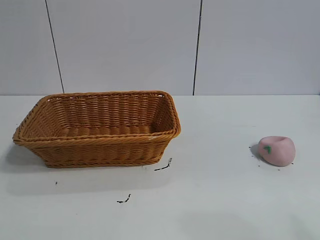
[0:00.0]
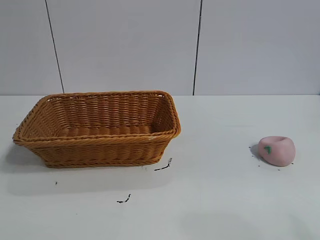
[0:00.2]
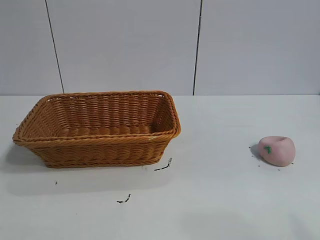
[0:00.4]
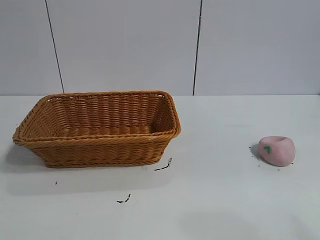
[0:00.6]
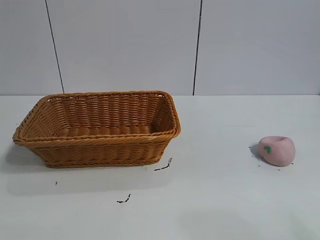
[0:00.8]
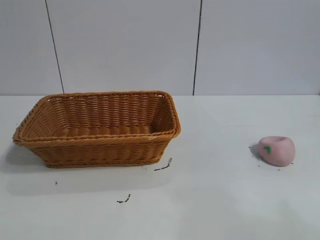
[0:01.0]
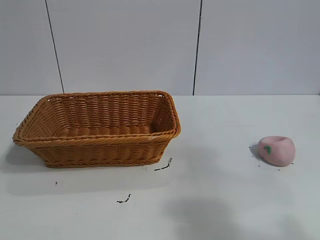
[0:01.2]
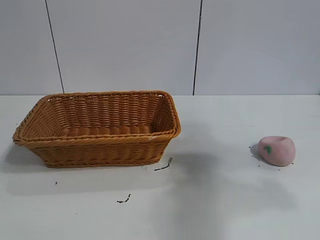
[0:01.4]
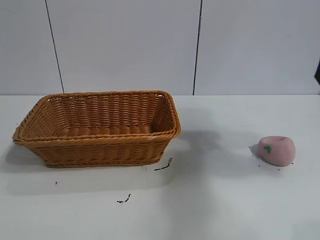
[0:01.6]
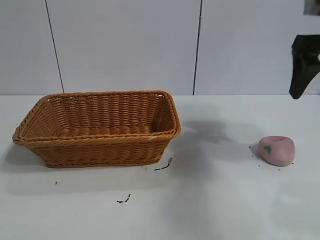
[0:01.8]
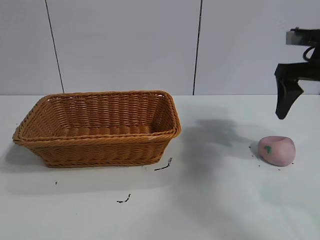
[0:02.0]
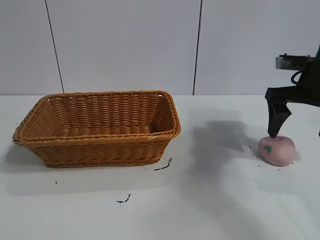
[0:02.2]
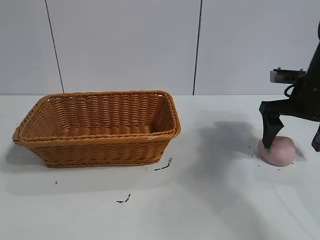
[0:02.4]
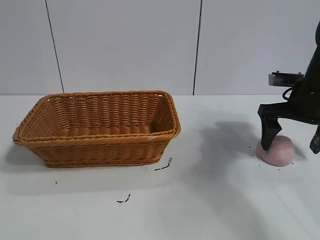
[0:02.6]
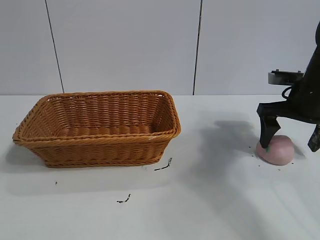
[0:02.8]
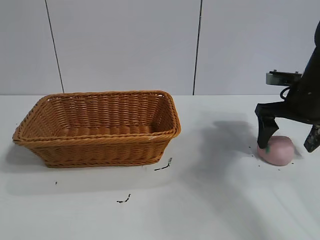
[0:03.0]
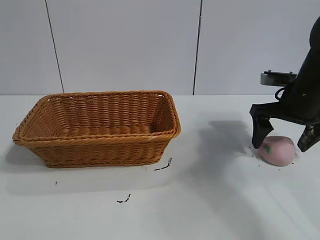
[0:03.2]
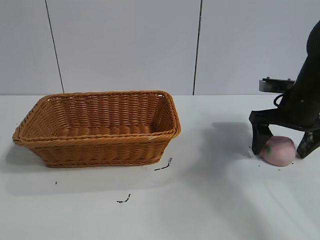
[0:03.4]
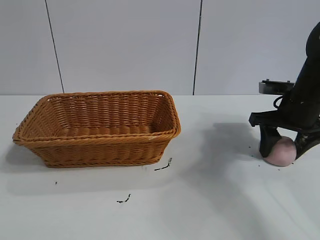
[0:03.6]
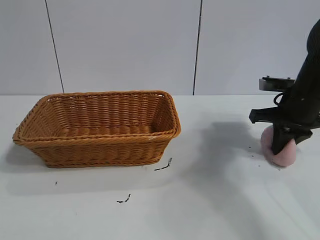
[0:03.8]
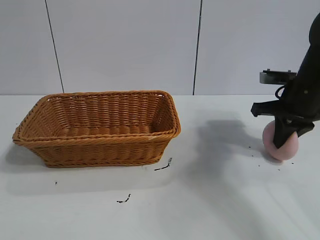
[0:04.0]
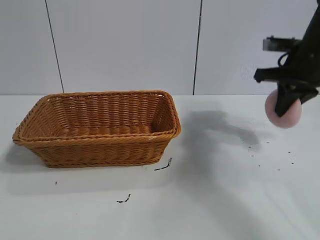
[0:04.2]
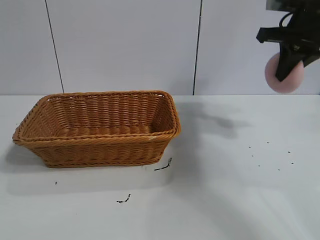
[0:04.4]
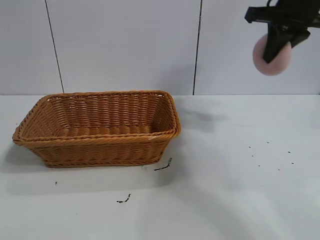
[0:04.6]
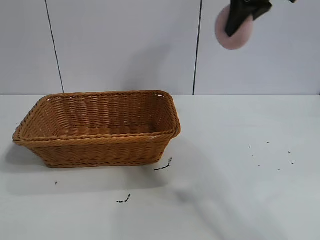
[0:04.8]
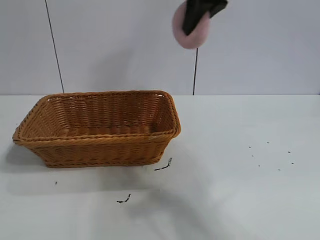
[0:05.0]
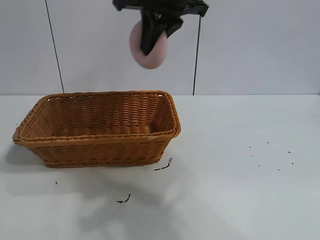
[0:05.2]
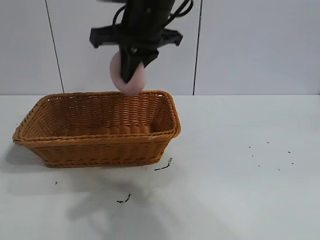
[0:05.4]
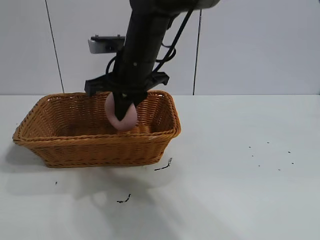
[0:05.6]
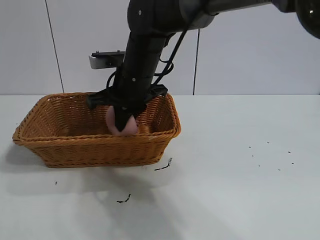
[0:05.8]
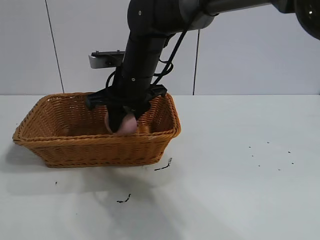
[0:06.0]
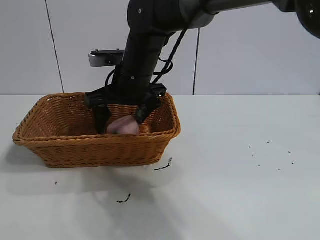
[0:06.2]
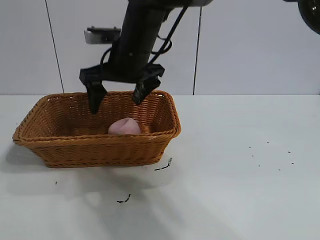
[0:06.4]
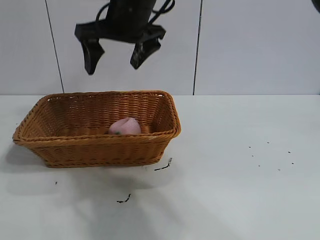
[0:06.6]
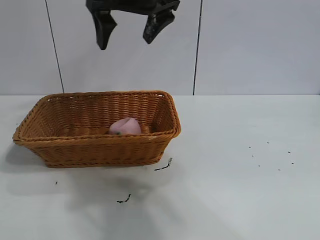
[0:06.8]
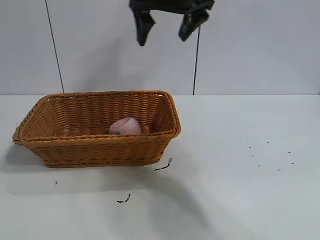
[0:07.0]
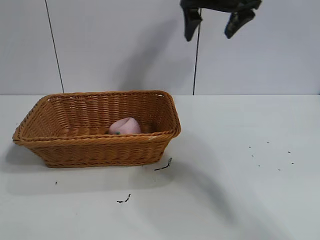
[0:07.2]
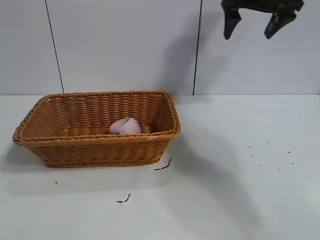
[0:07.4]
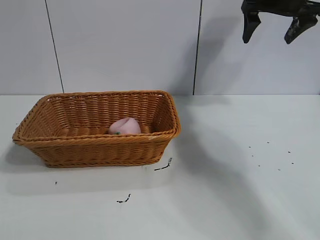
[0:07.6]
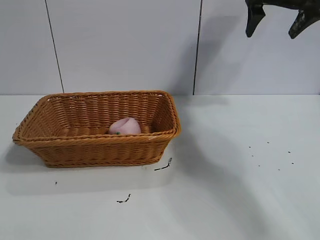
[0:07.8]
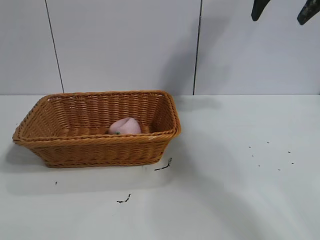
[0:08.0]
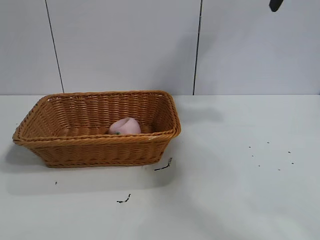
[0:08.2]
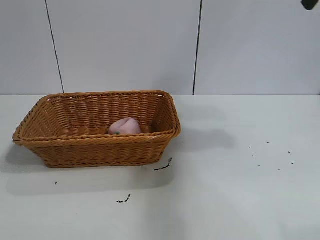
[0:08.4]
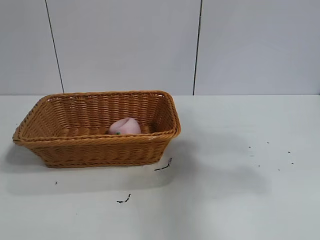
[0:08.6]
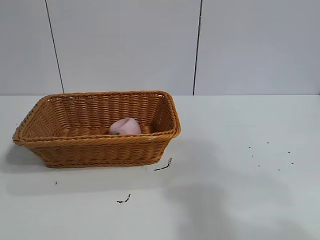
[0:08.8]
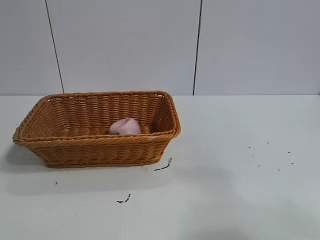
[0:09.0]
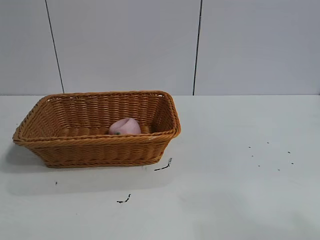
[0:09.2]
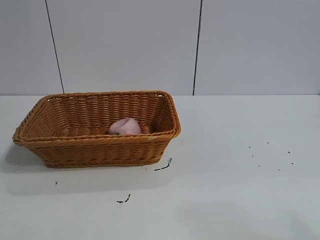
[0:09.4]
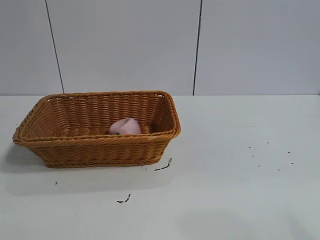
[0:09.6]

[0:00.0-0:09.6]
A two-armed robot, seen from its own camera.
Task of the whole recording: pick up the peach and put it into the basket.
Step, 0:01.0 to 0:04.0: Grasp the peach with right gripper.
Step, 0:04.2 to 0:06.4: Place the peach in the basket with right gripper.

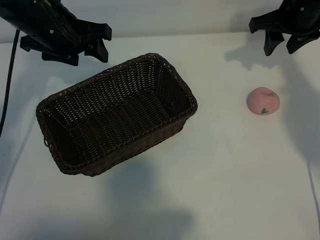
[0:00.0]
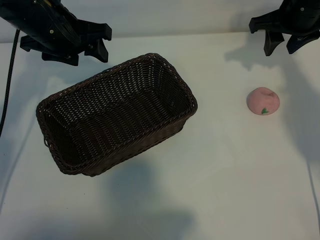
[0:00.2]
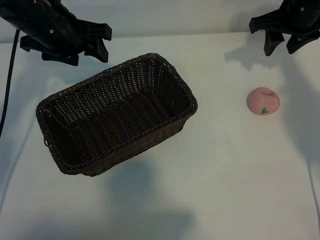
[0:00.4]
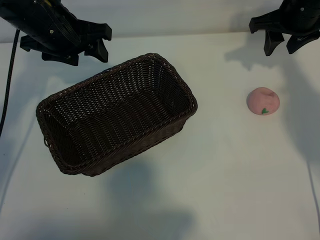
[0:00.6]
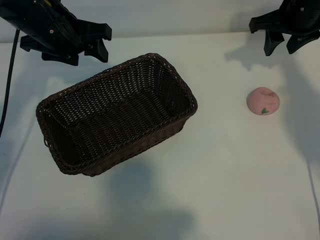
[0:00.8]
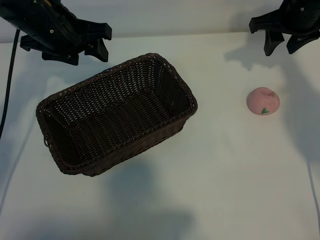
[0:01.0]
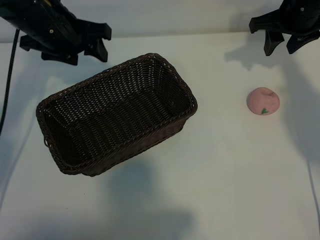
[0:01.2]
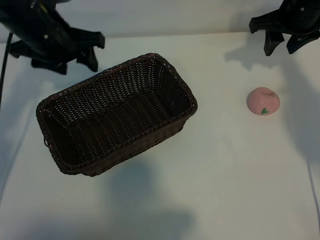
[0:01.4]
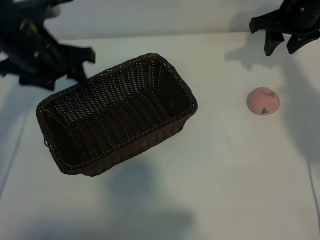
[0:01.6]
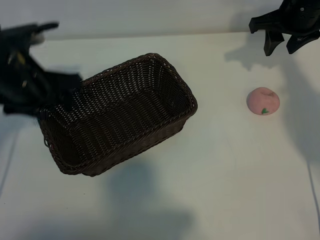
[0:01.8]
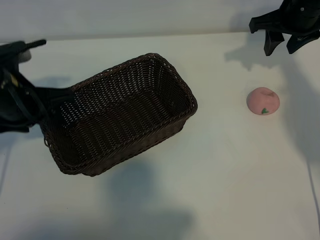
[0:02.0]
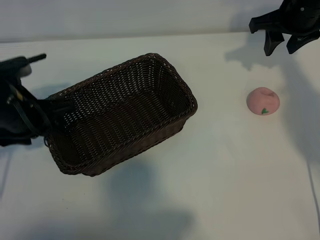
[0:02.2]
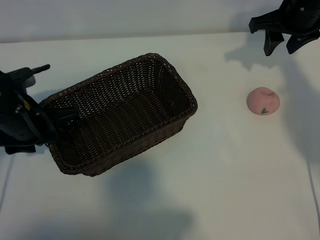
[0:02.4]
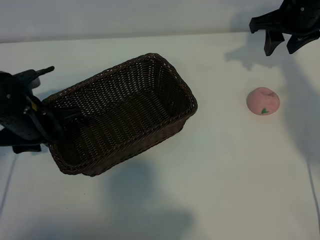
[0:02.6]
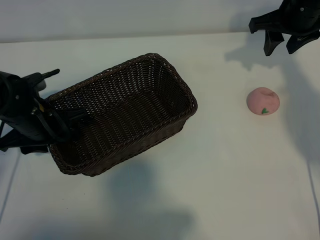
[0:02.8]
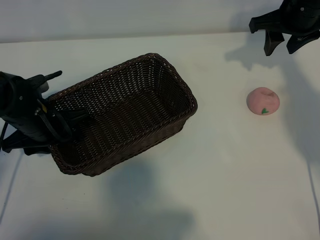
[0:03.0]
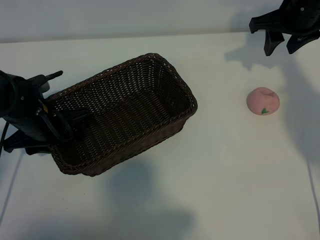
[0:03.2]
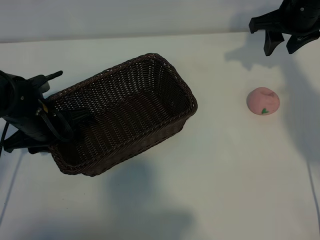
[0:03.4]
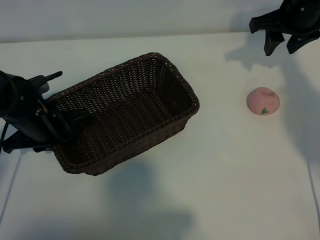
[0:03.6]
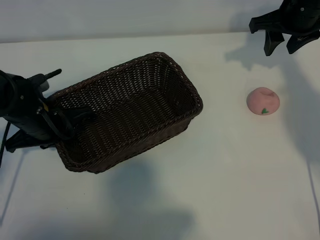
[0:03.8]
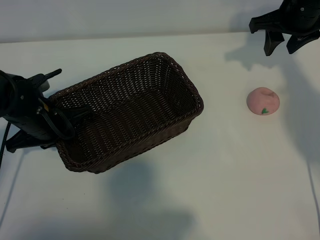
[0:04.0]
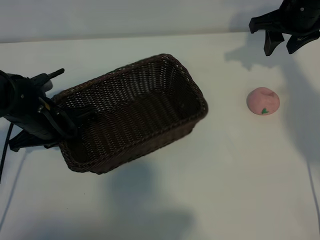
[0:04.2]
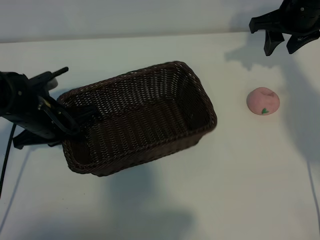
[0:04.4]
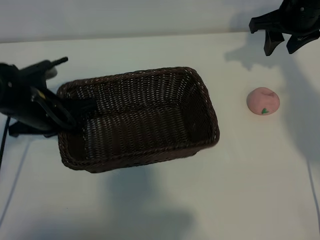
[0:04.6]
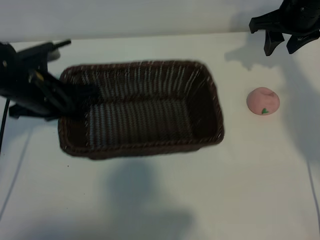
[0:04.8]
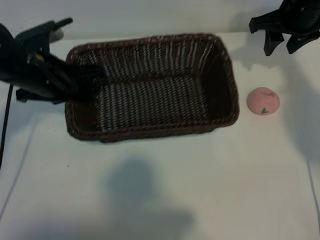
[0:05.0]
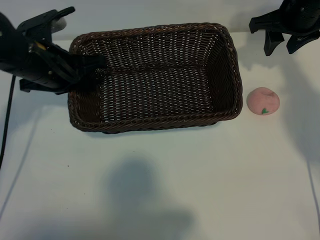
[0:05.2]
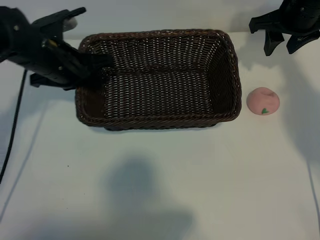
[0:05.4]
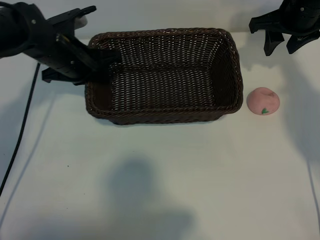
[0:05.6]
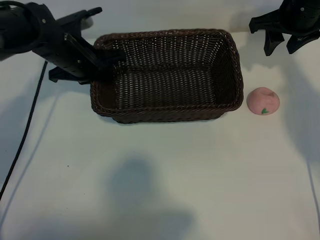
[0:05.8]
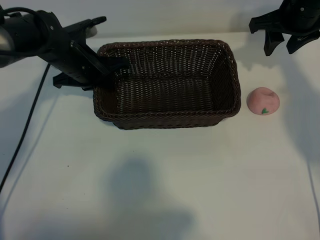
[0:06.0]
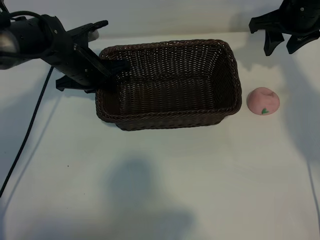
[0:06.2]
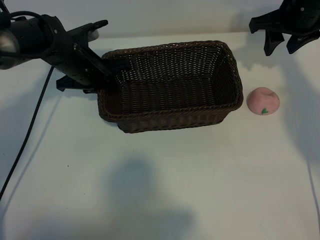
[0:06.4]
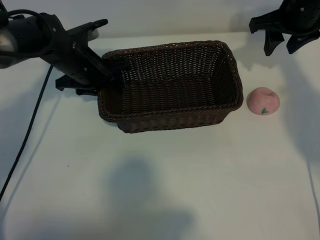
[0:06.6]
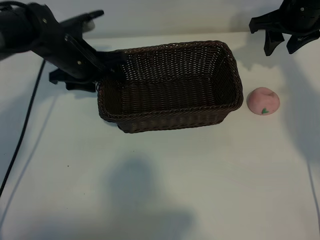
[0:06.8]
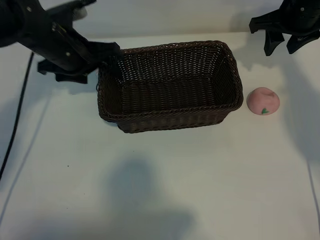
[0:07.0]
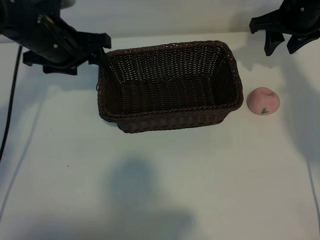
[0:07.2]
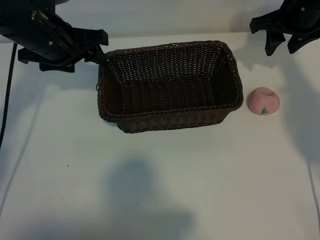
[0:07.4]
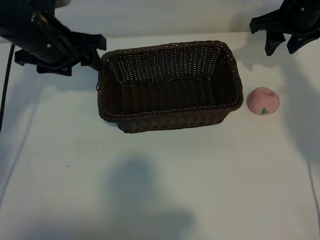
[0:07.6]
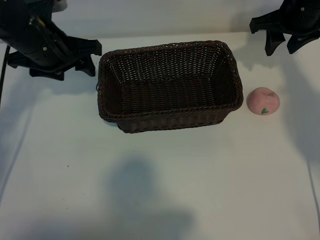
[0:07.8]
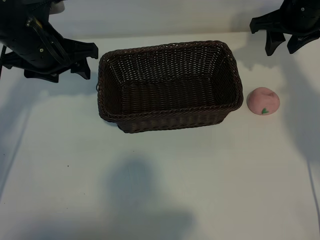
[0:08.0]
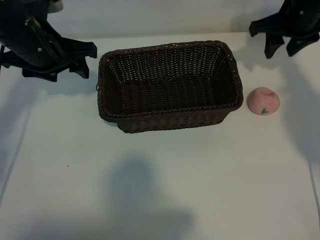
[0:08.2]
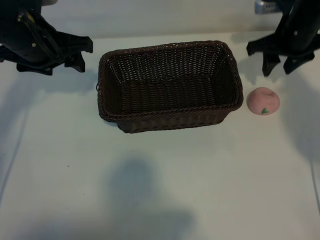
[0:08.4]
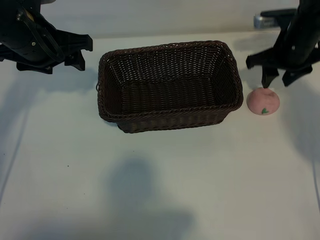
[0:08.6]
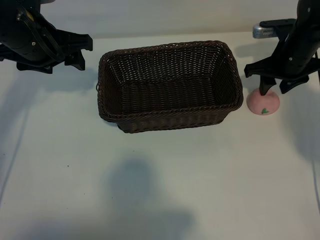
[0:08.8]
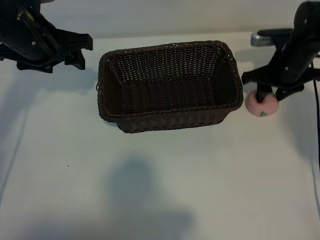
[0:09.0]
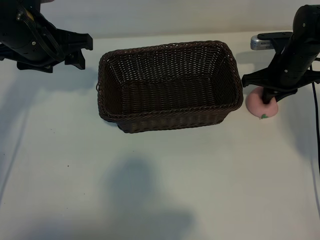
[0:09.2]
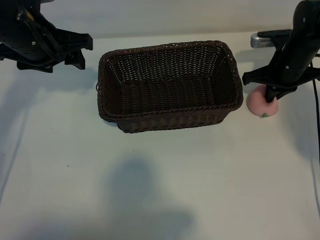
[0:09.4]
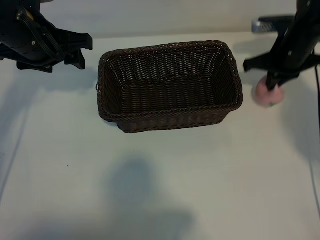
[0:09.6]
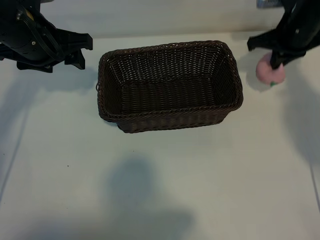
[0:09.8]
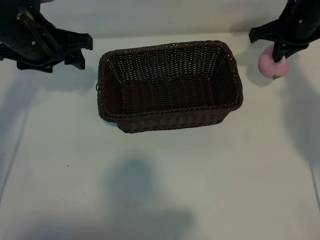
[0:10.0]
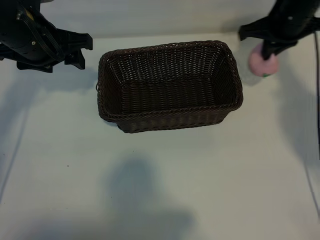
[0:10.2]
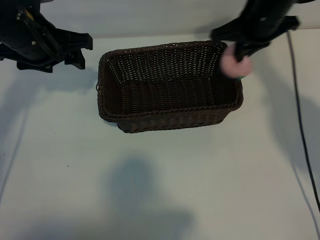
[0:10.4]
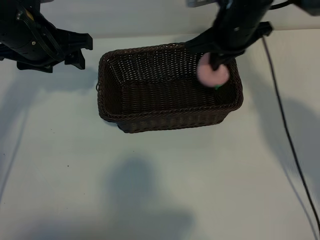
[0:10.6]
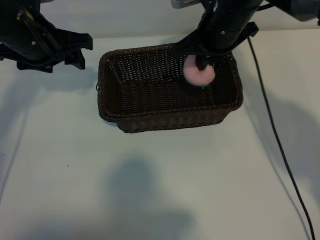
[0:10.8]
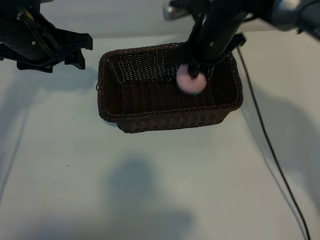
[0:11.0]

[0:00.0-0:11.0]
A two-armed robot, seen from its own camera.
Task of the whole recording: pick up the peach and put it into the basket.
Step, 0:01.2 to 0:03.8: Grasp the basket with left gripper.
Step, 0:04.0 to 0:06.8: Place the basket in the center of view with left gripper.
Step, 0:07.0 to 0:09.4: Grasp the peach with right gripper.
